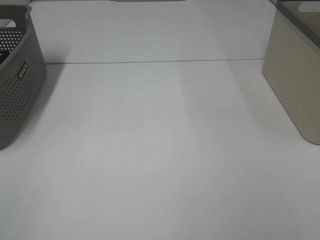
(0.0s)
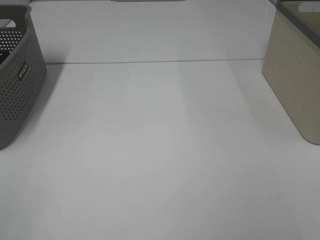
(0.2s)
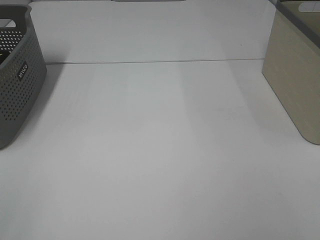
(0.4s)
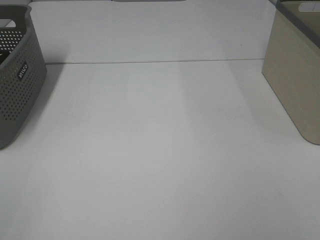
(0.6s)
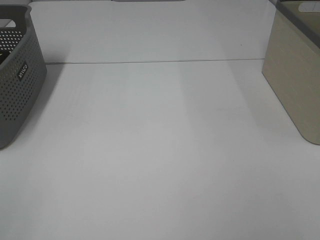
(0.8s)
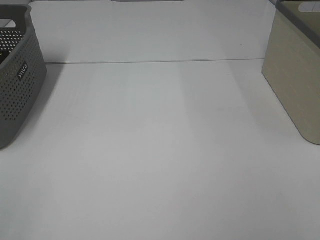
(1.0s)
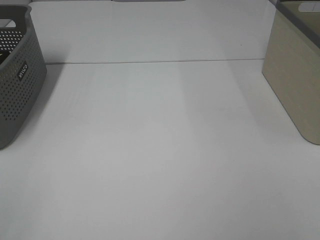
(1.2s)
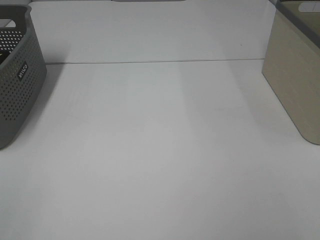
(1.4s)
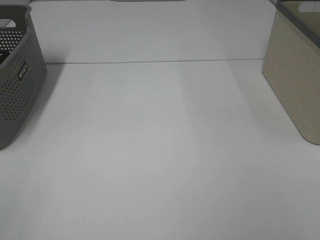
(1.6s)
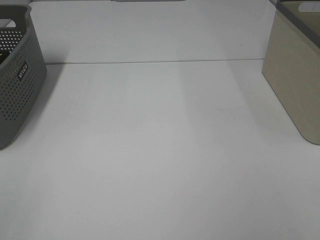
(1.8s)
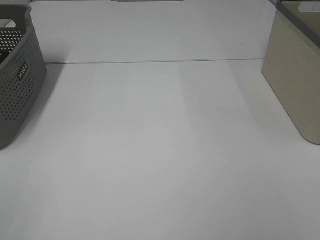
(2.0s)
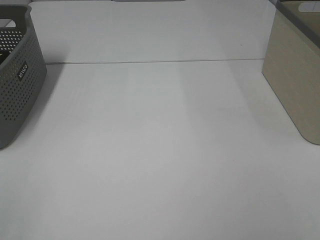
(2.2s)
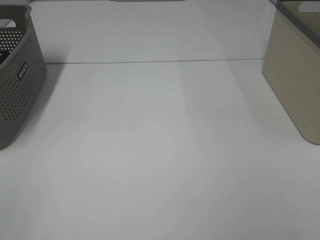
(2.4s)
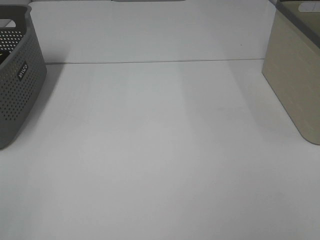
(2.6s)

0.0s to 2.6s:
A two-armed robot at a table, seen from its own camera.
0.0s to 2.6s: Both grippers stay put.

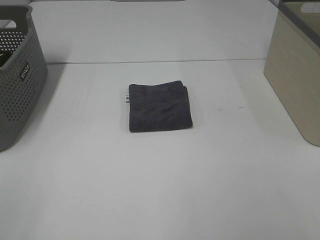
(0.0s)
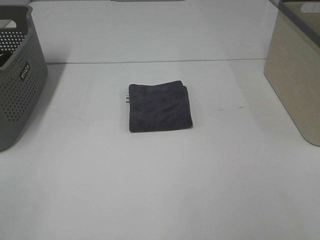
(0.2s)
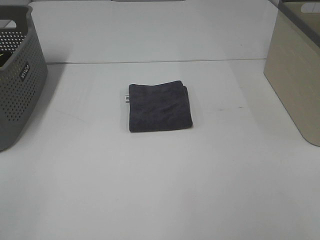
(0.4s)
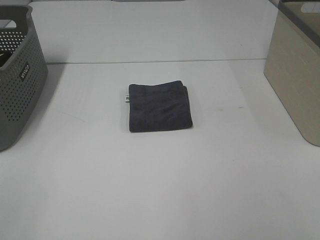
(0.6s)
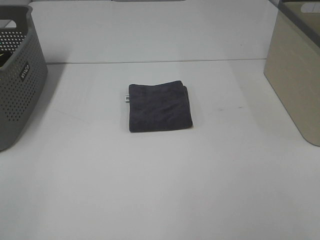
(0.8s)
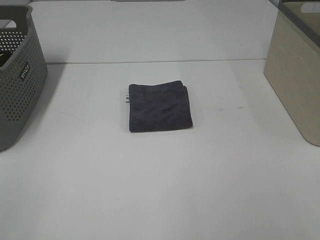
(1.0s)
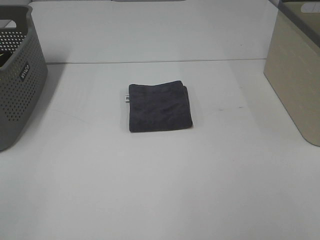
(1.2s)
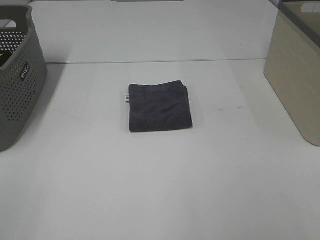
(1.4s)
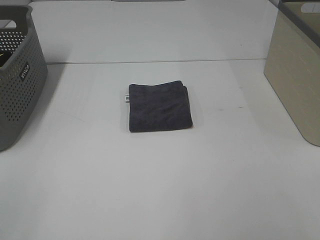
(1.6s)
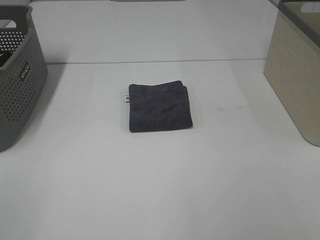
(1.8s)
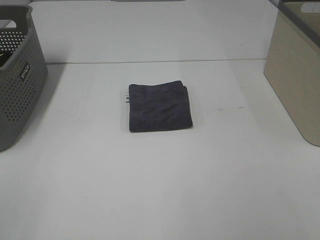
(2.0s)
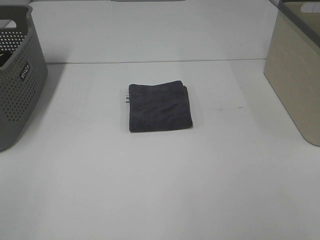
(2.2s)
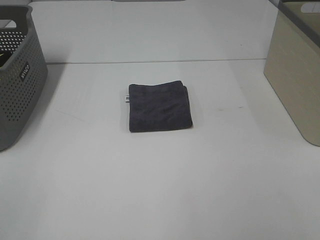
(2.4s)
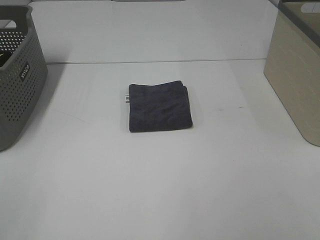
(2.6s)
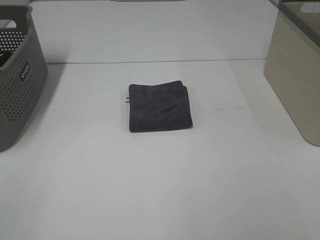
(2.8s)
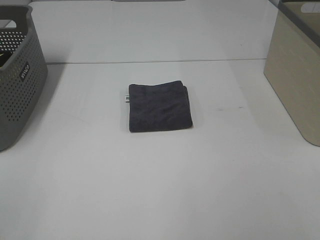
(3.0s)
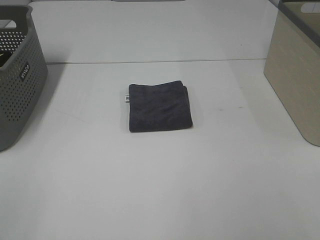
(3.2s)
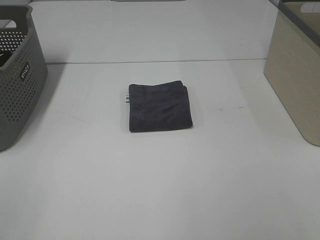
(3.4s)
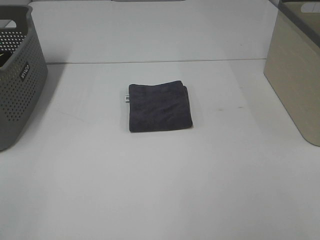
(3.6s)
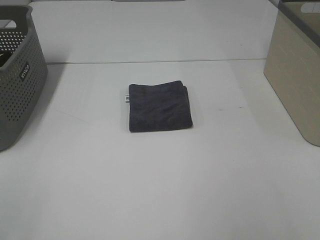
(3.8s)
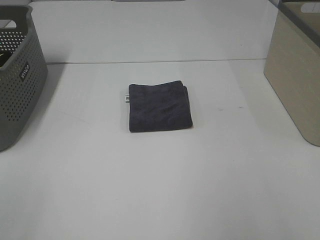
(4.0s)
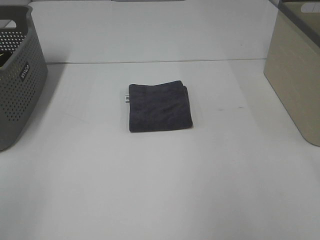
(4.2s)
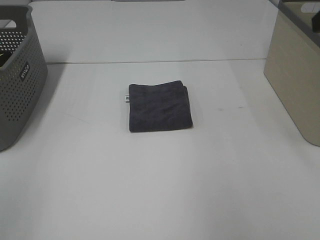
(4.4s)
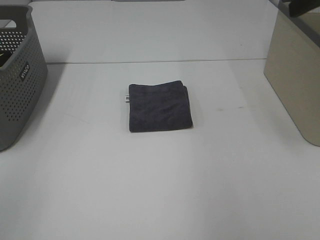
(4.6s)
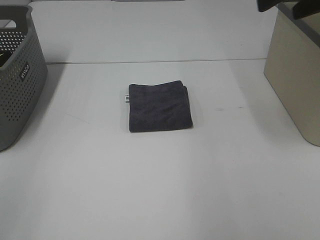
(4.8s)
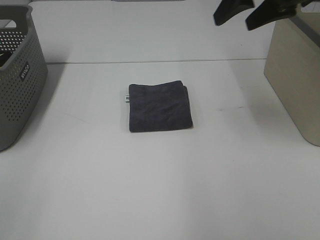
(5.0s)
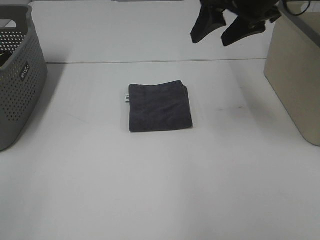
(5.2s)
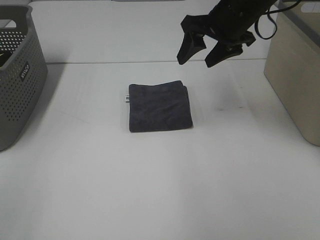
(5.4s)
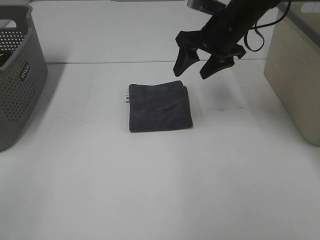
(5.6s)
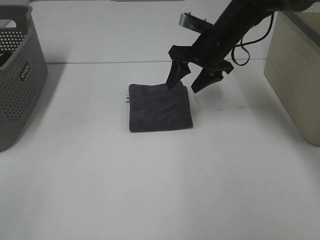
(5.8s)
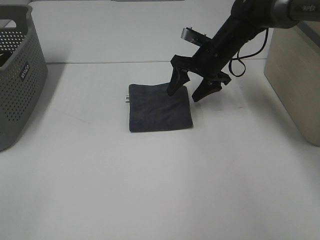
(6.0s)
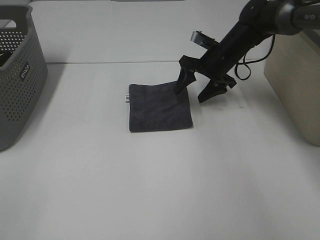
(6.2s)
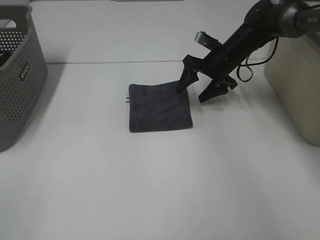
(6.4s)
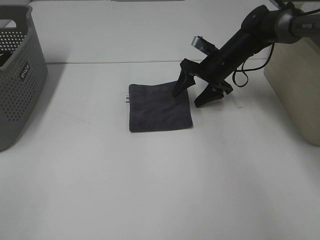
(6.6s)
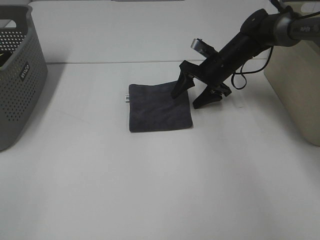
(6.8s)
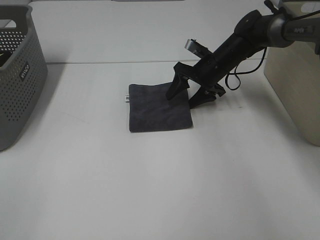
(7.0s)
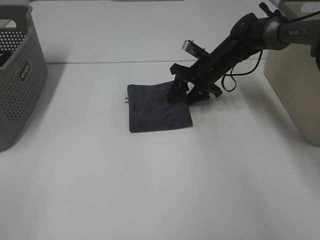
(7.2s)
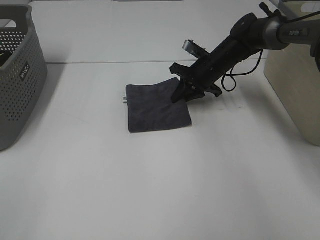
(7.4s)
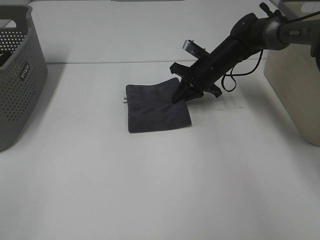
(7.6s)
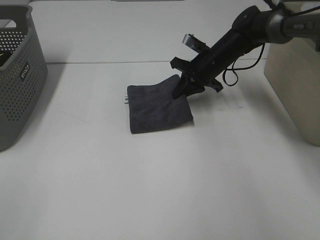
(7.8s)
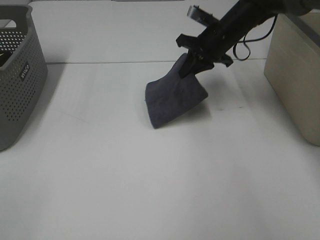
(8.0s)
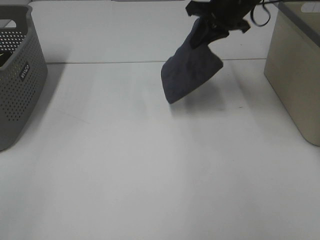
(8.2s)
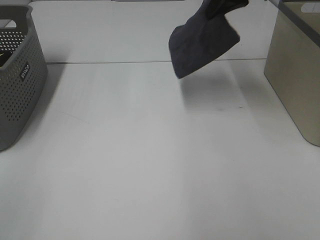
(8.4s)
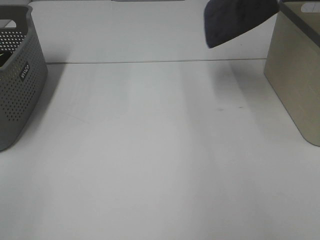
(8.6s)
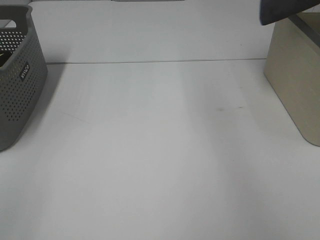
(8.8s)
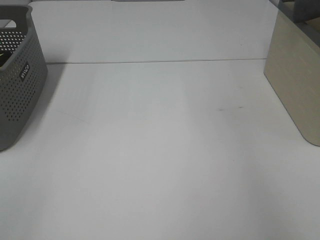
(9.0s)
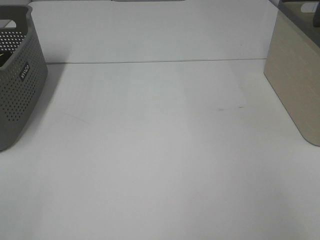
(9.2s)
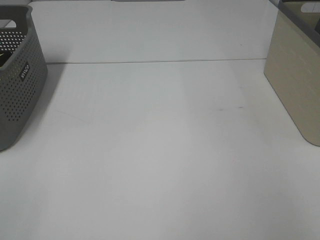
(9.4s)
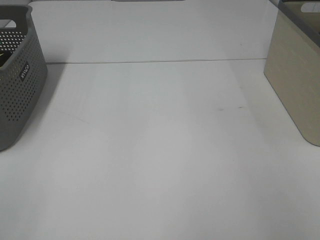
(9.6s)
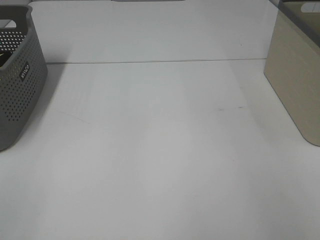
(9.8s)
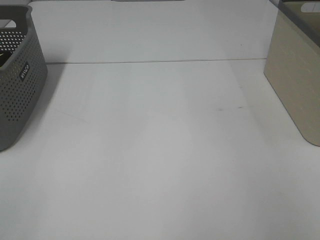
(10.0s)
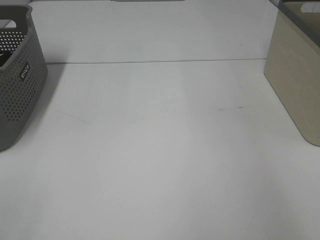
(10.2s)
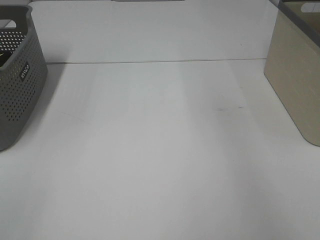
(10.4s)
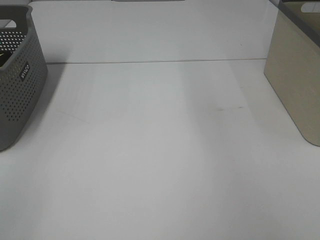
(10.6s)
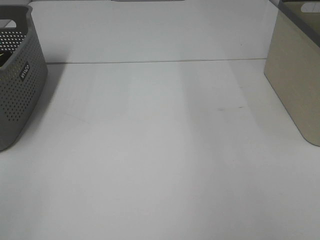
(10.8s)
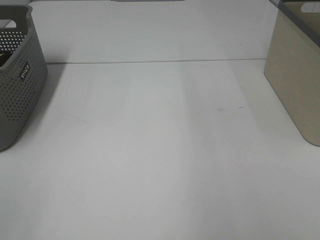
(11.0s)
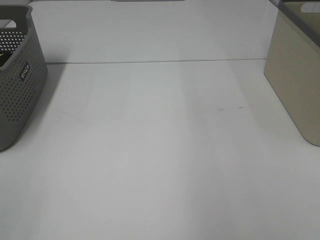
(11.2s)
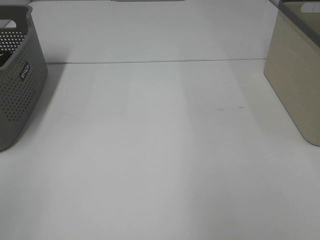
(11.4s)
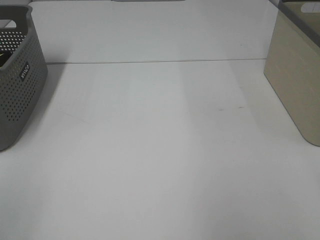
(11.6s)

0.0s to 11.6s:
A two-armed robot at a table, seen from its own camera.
Step, 0.0s to 7.4s: Right hand: grab the folded grey towel.
Step, 7.6s to 9.8s: Right hand: place the grey towel in right basket.
0.0s to 2.8s: Both grippers stay about where they are.
4.4s to 5.8s: The right gripper is displaced forward, downward and to the left by some 30 cm.
5.8s to 7.2s: The right gripper goes approximately 10 cm downward.
7.2s to 8.8s: The right gripper heads upward and to the right, covering roughly 35 cm, and closes.
8.8s to 10.2s: The right gripper moves to the right, some 5 cm, and opens.

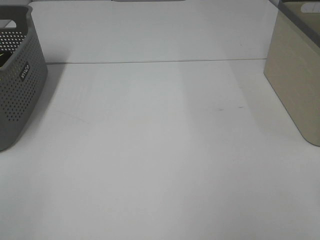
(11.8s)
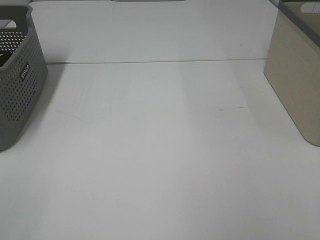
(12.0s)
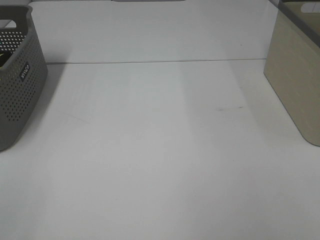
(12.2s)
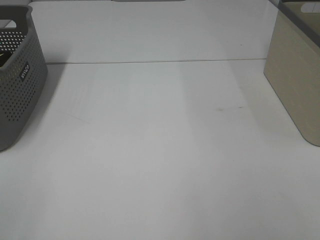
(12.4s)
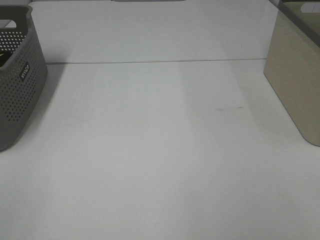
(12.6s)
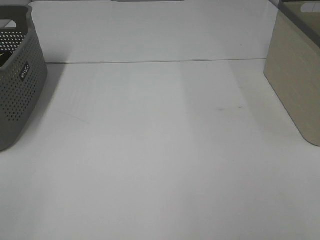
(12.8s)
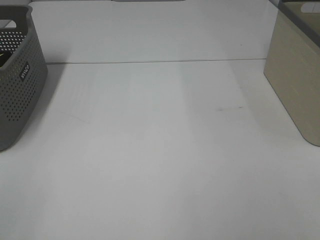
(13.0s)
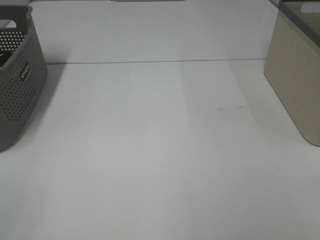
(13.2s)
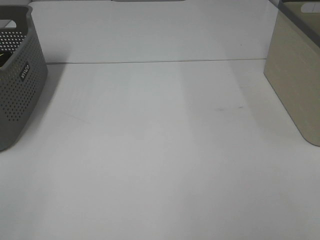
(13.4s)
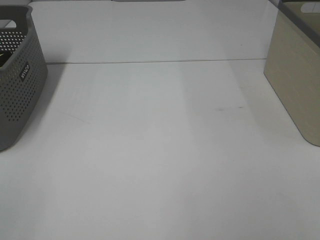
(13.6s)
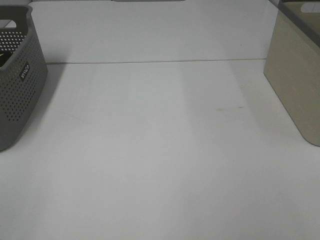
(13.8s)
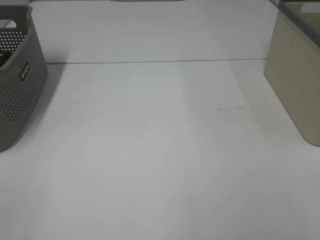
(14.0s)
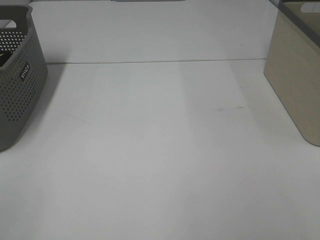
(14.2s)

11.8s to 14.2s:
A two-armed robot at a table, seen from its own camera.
13.0s to 14.2s: Both grippers stay about where they are.

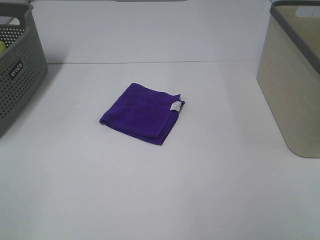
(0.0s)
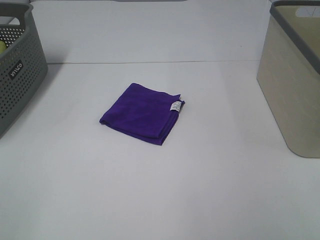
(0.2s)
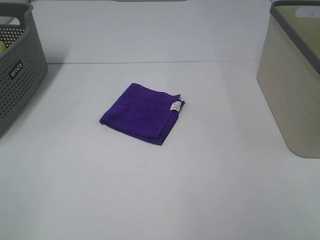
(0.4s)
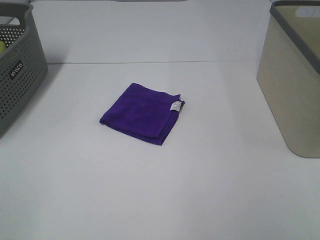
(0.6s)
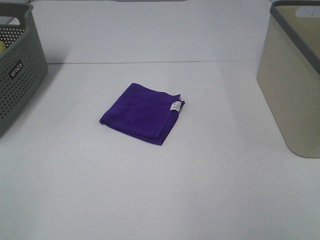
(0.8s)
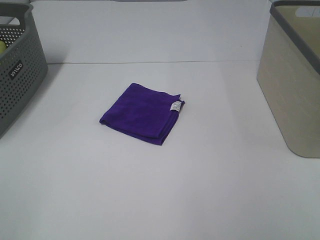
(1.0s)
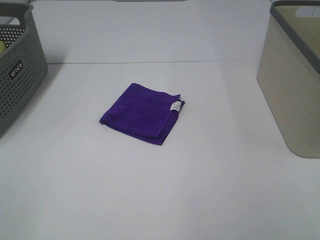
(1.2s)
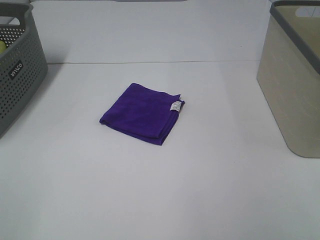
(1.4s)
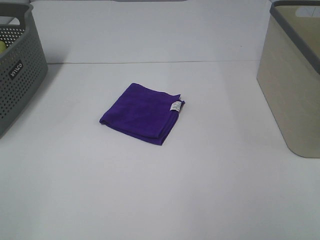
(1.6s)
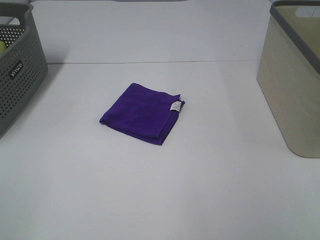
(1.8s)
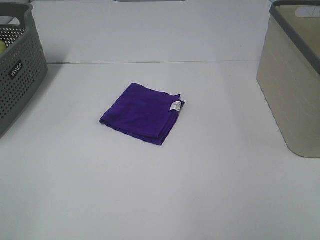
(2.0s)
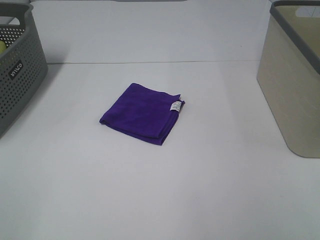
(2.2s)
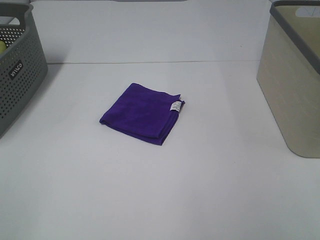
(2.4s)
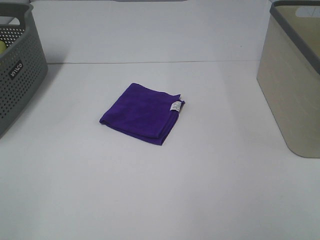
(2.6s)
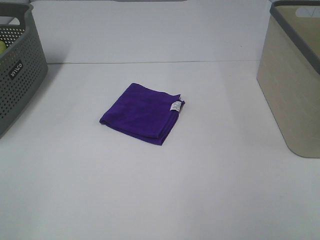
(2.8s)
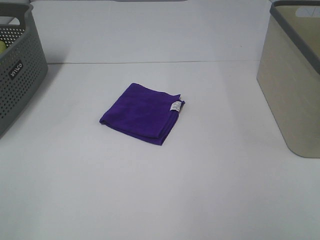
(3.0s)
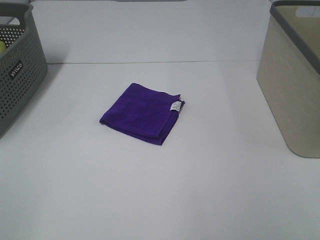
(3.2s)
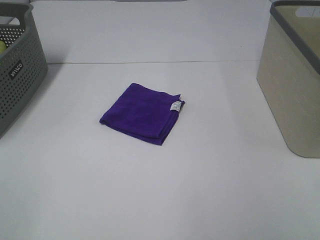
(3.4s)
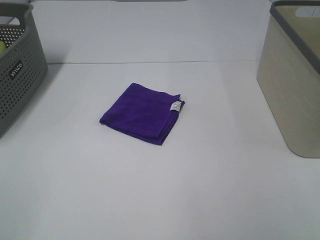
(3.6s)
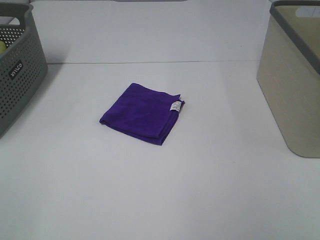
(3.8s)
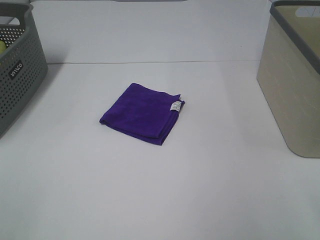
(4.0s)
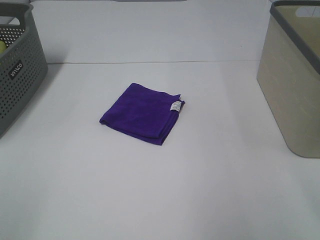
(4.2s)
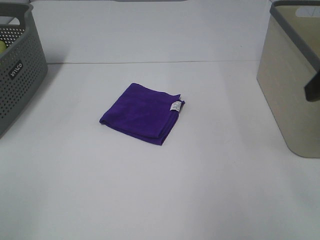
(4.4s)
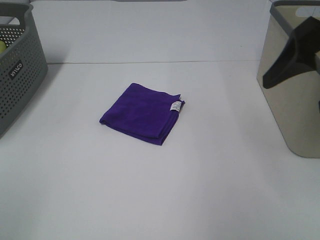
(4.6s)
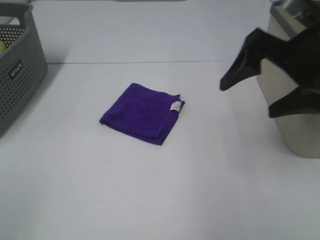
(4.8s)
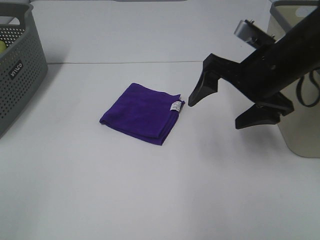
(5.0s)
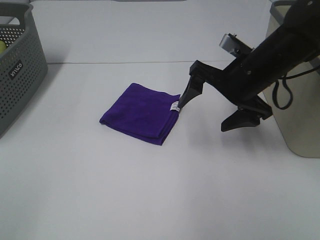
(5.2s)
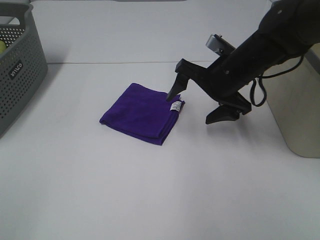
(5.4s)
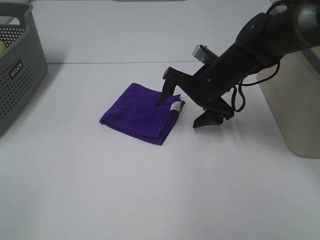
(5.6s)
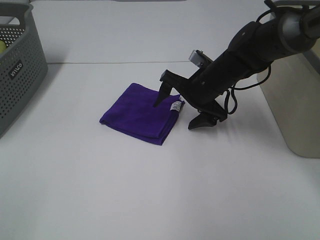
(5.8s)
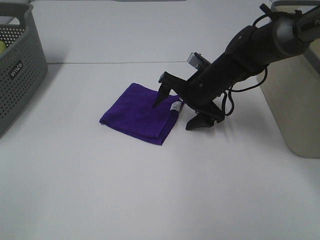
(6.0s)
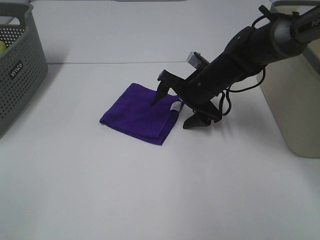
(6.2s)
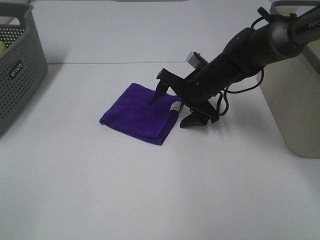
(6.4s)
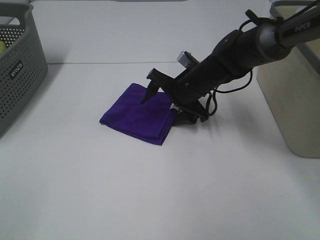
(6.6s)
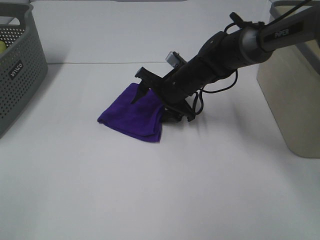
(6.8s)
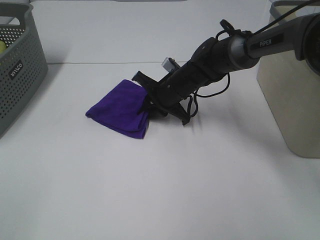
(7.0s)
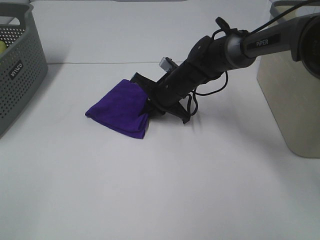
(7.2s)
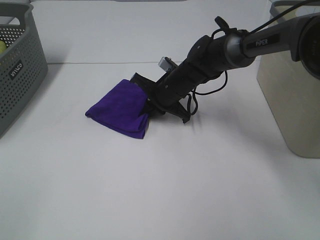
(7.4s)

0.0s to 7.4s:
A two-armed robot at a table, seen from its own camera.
Step, 0.0s to 7.0s: Right hand: grab the folded purple towel.
0.0s to 3.0s: Both grippers stay about where they are.
4.4s to 6.0s: The right gripper heads downward, forward and to the left, covering roughly 35 cm.
6.0s to 7.4s: The right gripper travels to the left by some 5 cm, and closes its fingers.
